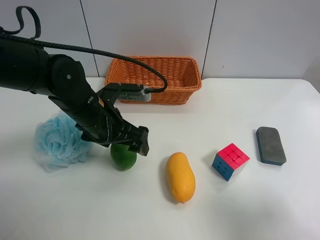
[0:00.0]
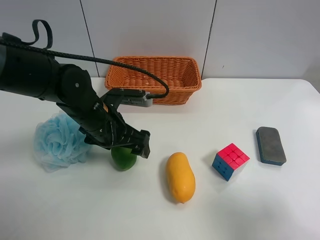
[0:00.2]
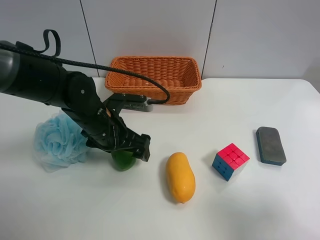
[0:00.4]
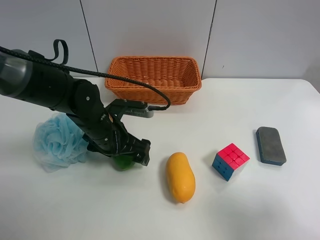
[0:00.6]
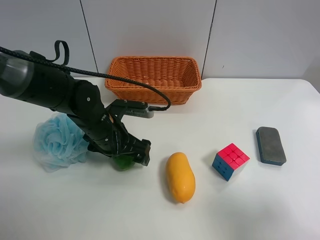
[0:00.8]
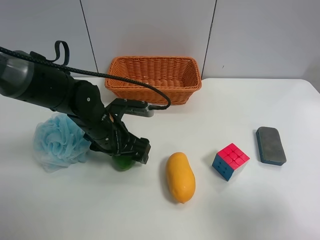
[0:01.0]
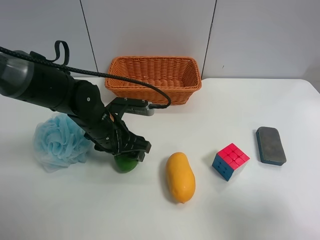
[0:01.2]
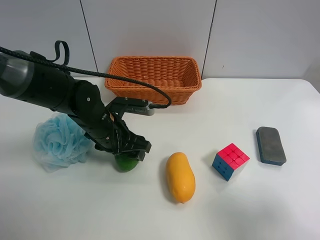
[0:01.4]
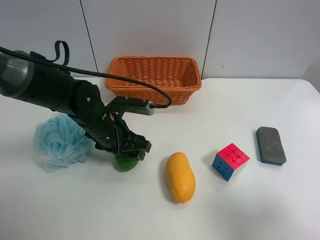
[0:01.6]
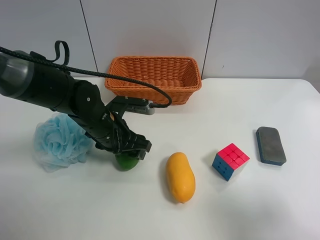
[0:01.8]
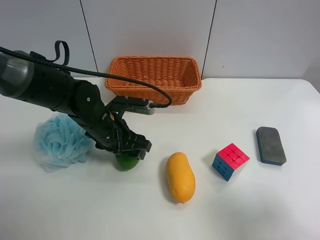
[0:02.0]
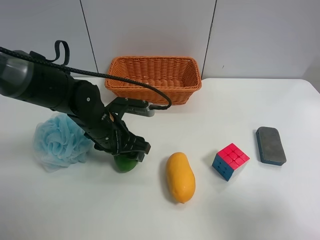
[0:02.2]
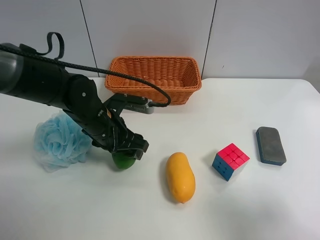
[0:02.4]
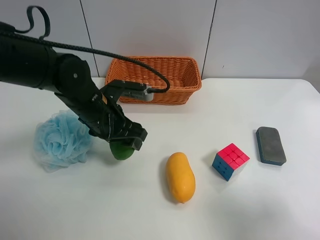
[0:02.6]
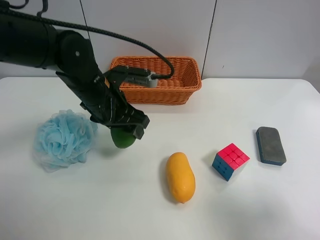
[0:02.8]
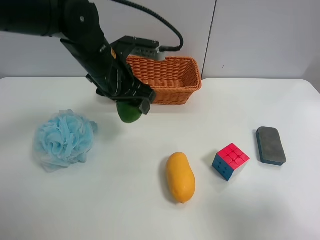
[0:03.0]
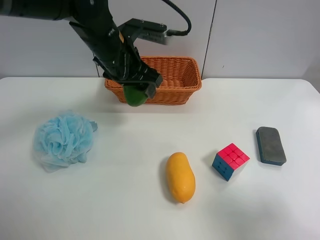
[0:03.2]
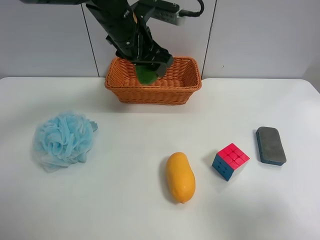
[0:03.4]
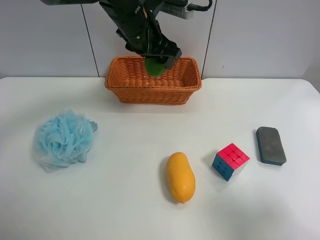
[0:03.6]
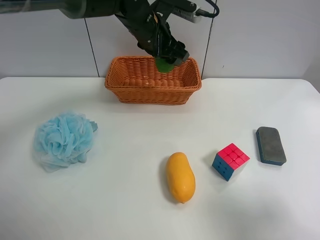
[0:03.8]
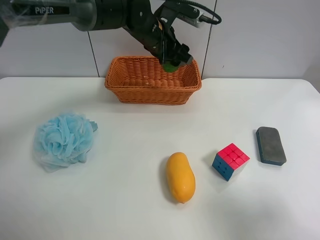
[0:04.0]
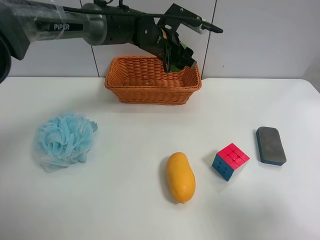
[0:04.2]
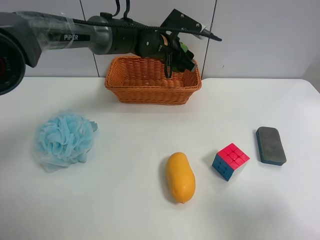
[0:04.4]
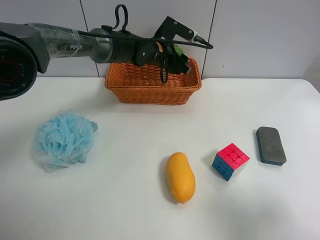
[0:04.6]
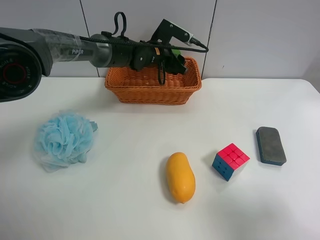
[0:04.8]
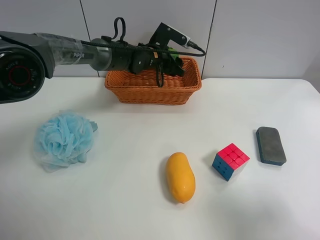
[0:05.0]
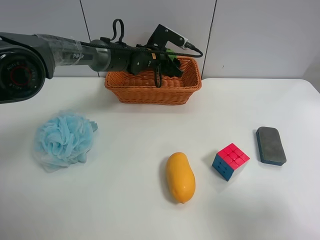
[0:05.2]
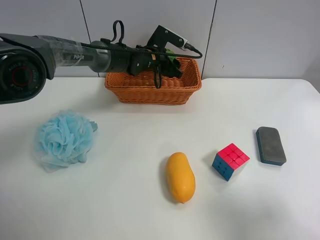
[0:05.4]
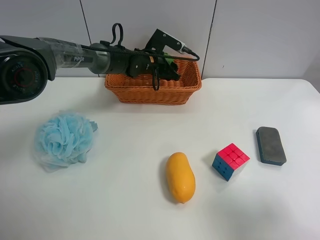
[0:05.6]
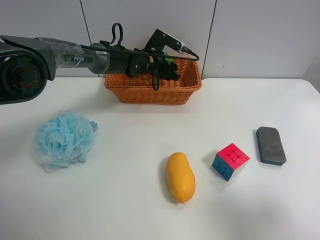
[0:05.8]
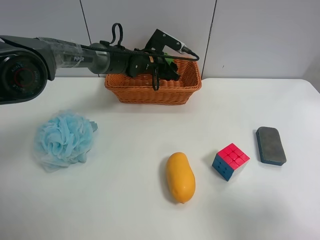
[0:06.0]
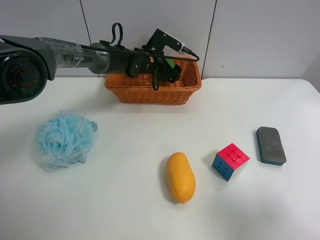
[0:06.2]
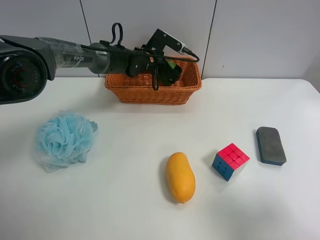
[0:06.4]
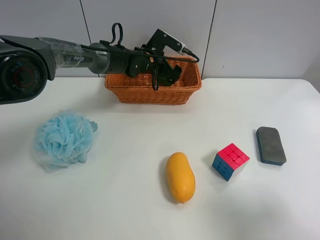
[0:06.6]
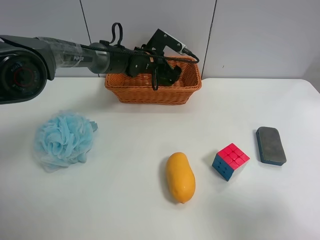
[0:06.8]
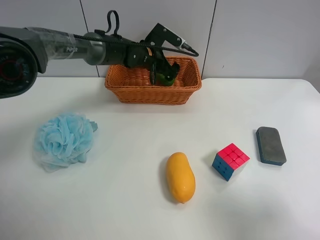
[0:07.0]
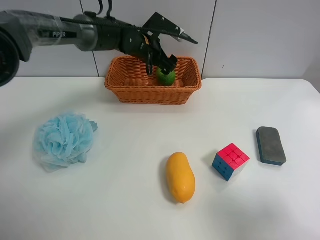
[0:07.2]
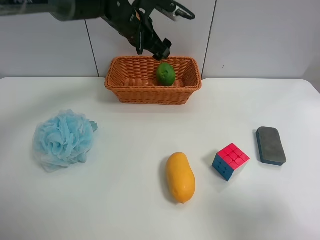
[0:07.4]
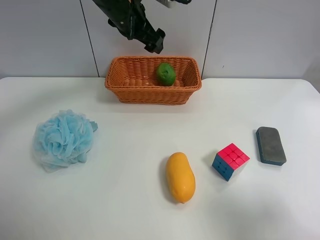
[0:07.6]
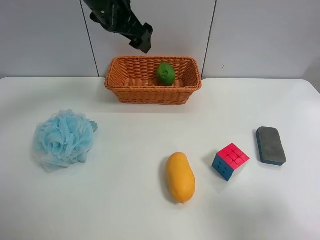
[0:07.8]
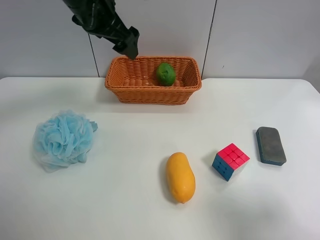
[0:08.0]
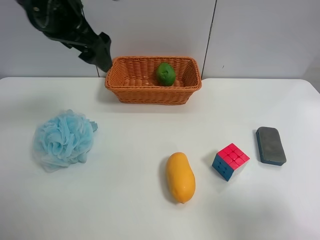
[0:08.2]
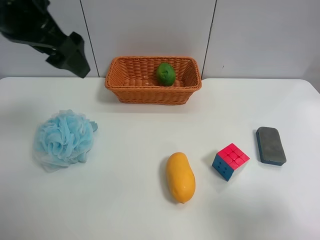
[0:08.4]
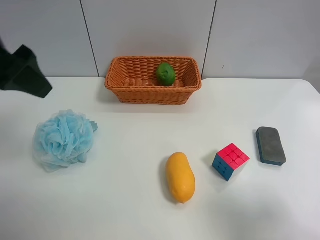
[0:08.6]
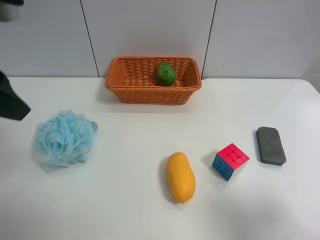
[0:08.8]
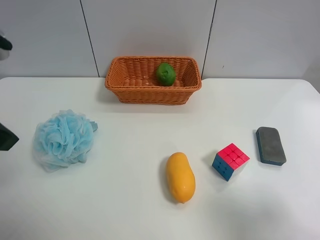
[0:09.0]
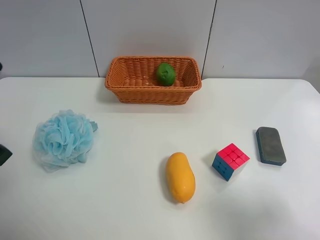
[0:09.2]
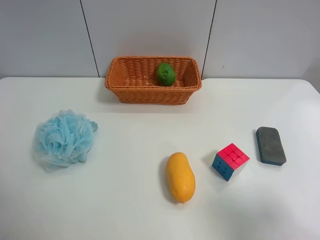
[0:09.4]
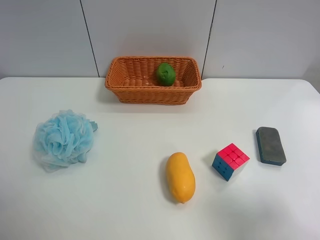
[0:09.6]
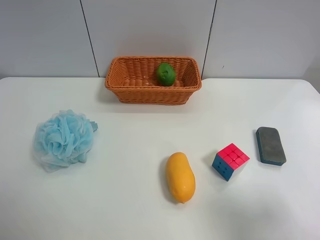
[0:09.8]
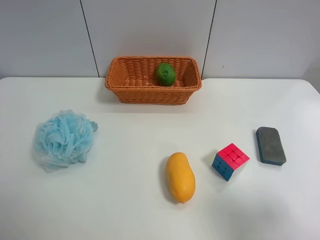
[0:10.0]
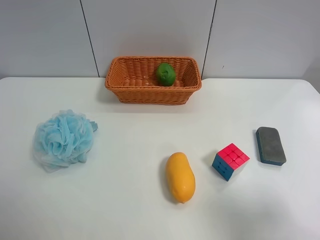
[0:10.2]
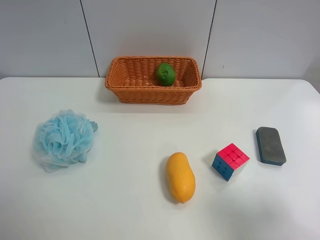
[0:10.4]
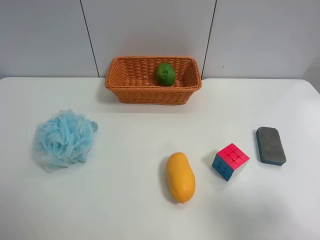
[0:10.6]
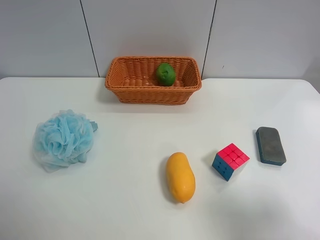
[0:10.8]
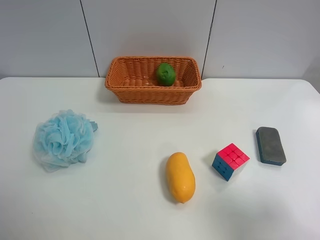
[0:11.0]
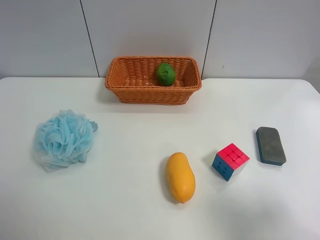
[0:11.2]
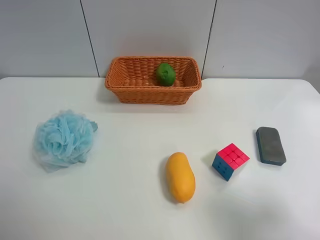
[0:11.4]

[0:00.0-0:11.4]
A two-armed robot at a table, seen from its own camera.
Task of the whole recording: use the left gripper to grab items from the table and place them in the basket.
Step, 0:01.8 to 0:06.4: Place the apple rubber puff into the basket with the left gripper.
0:00.0 to 0:01.4: The left gripper closes its fingers.
0:01.4 to 0:02.8: The left gripper is displaced upward by approximately 10 cm.
0:02.8 to 0:04.2: The left gripper shifts approximately 20 cm forward and to the right.
0:04.2 to 0:05.6: The left gripper moves downward, approximately 5 cm.
0:05.6 to 0:07.2: The left gripper heads upward, covering roughly 5 cm, and opens up.
0:07.2 to 0:08.6: The left gripper heads backward, upward and to the left, covering approximately 35 cm.
0:08.6 to 0:10.0: The left gripper shifts roughly 20 cm backward, to the left and downward.
